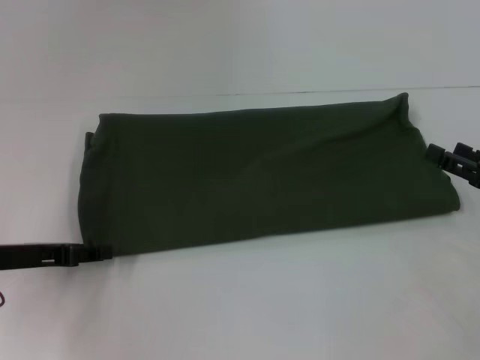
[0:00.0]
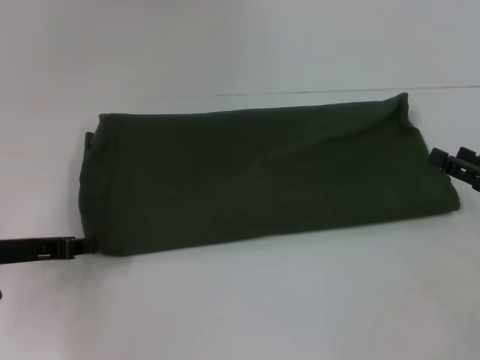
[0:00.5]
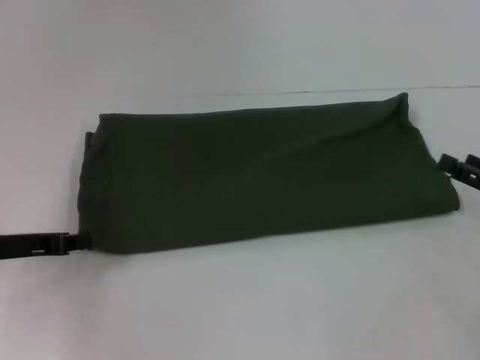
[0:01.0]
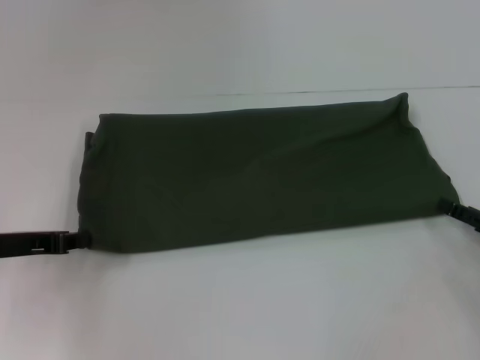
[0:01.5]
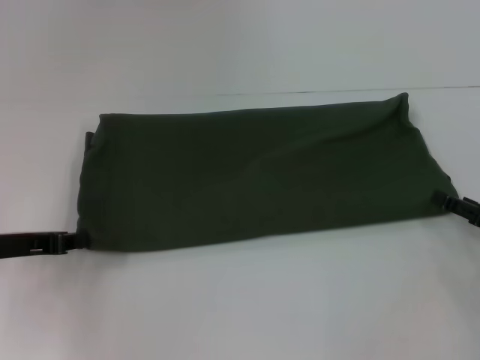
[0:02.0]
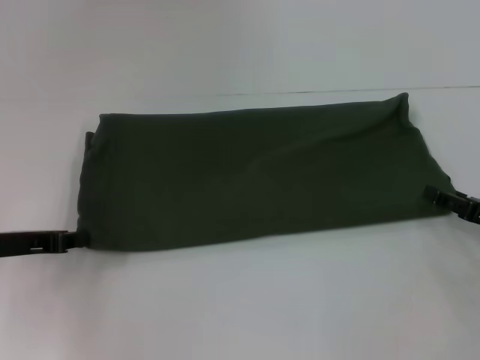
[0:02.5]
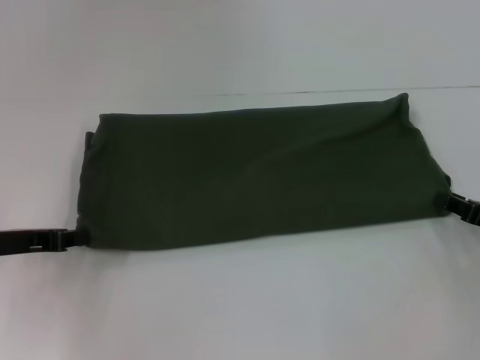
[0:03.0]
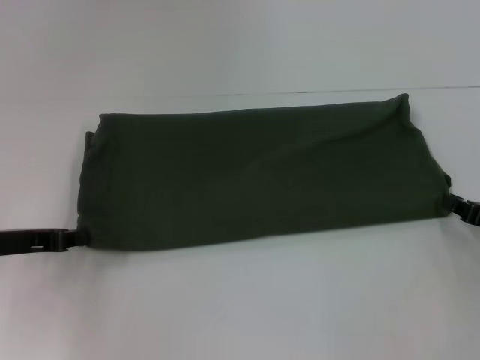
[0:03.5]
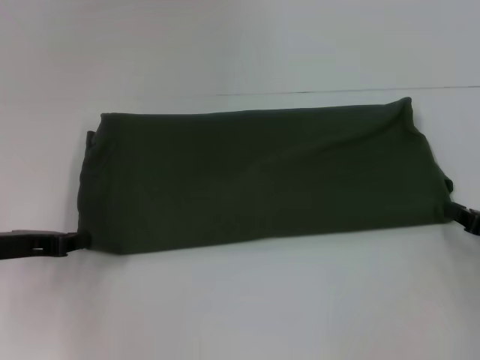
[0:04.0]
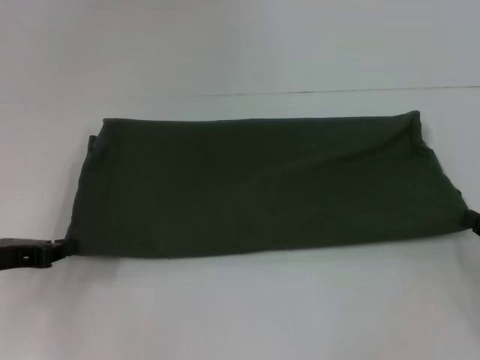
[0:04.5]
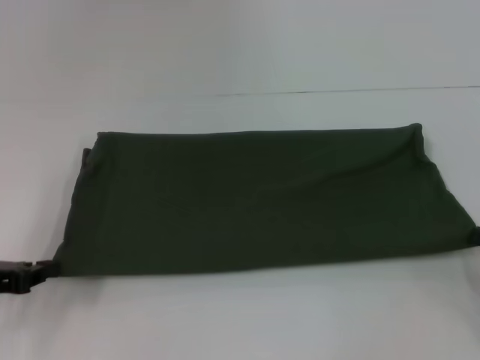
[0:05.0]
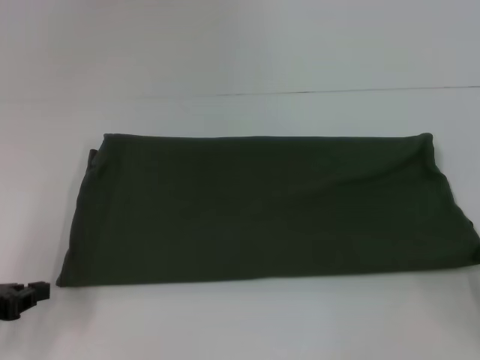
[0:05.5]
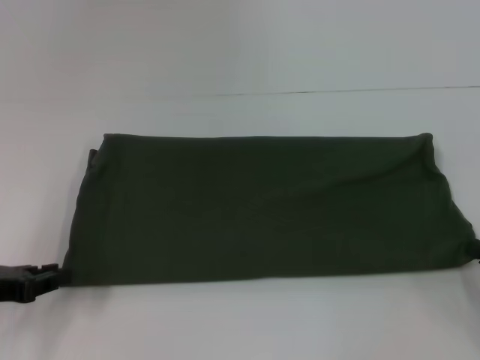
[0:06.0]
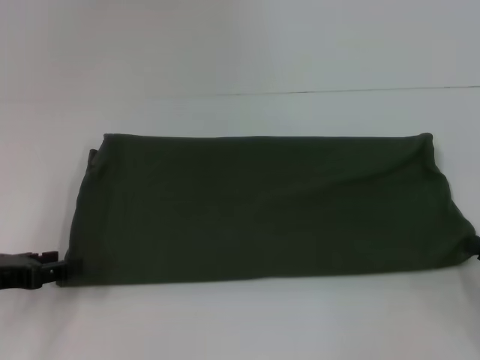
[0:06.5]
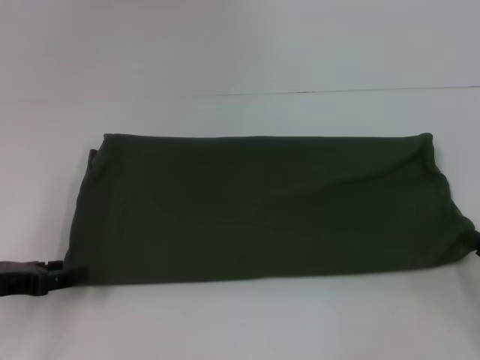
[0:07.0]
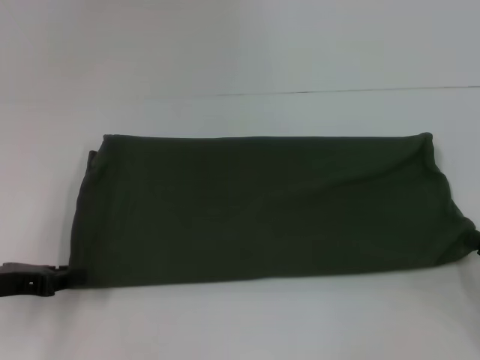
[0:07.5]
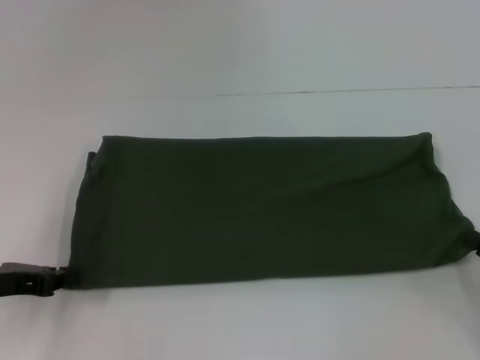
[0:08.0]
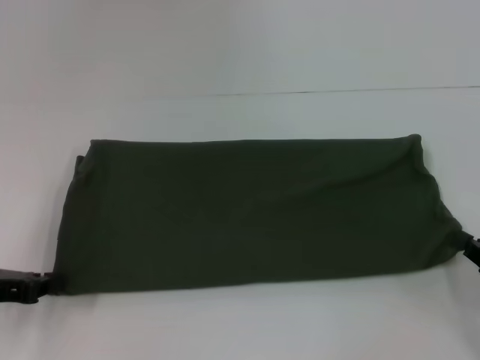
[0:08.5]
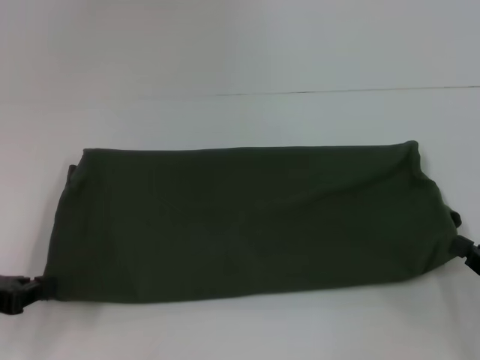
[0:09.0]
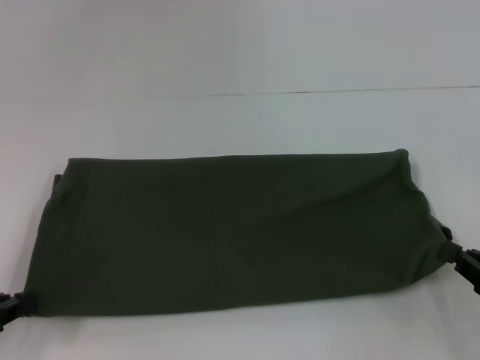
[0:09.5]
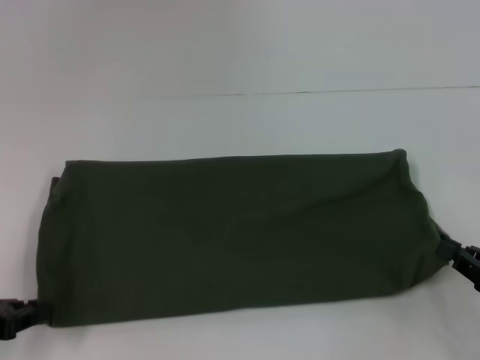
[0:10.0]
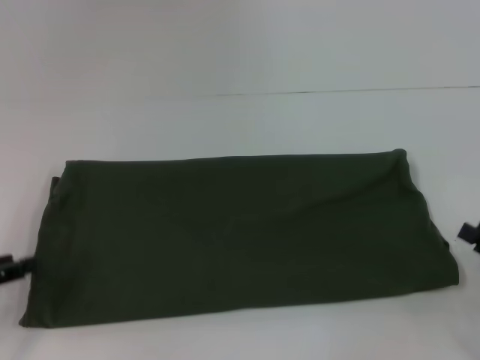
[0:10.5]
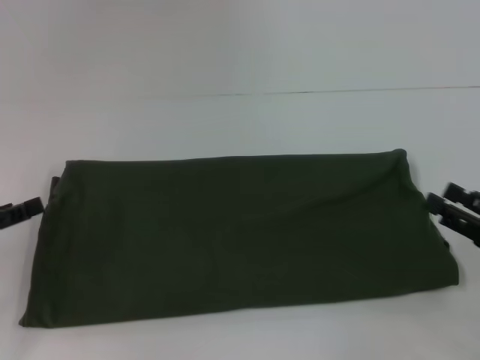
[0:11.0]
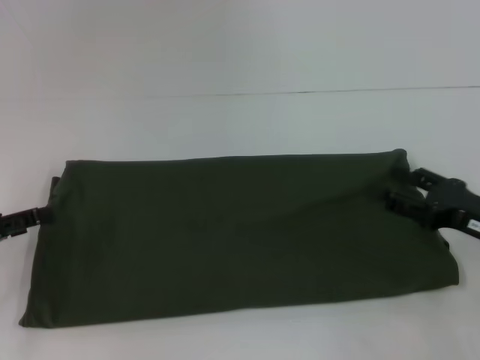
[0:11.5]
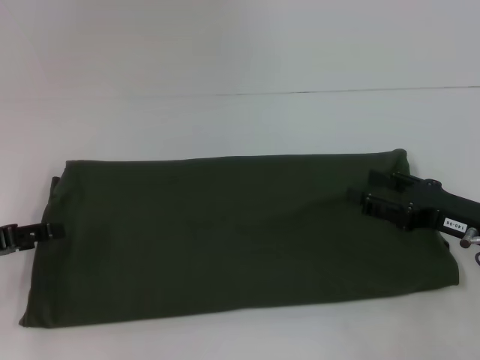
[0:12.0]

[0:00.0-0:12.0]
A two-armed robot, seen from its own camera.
0:00.0 to 0:02.0: The left gripper closes up.
0:02.0 to 0:04.0: The right gripper closes up.
0:04.0 to 0:06.0: Both grippers move backward, roughly 5 cm.
0:06.0 to 0:08.0: The left gripper opens and closes again.
0:08.0 to 0:10.0: The left gripper moves some 5 cm.
0:10.0 to 0:12.0: The left gripper is displaced forward by about 5 cm, and opens up. The right gripper travels forward and to the left by about 10 cm, and opens its fingers.

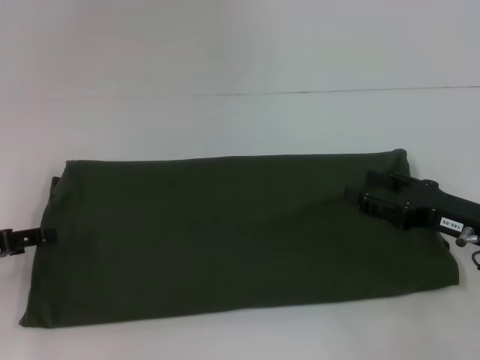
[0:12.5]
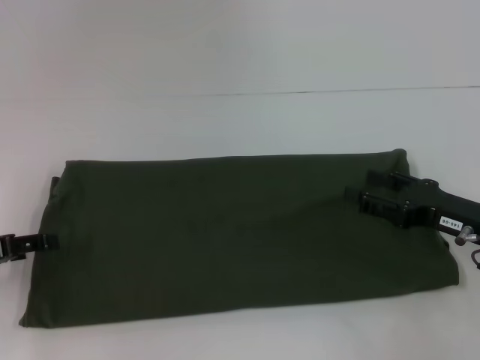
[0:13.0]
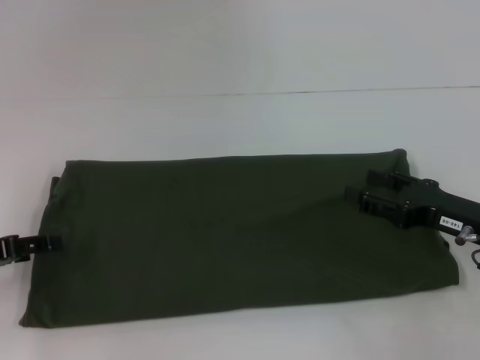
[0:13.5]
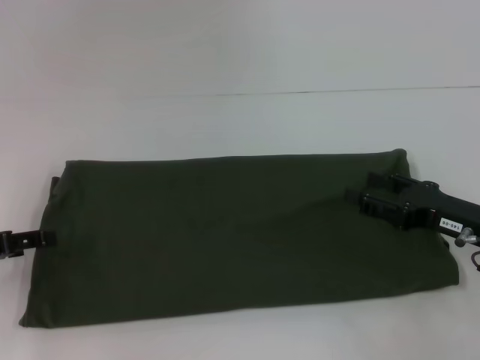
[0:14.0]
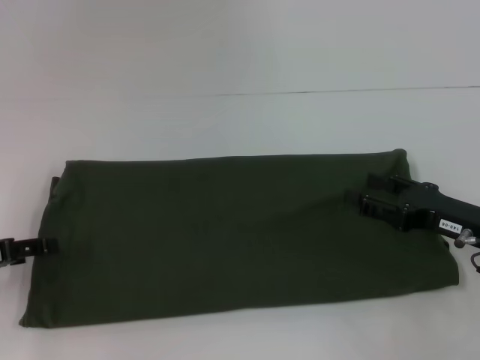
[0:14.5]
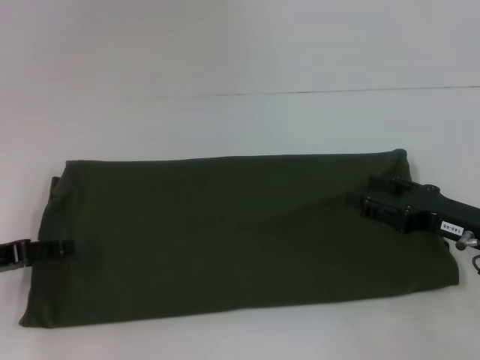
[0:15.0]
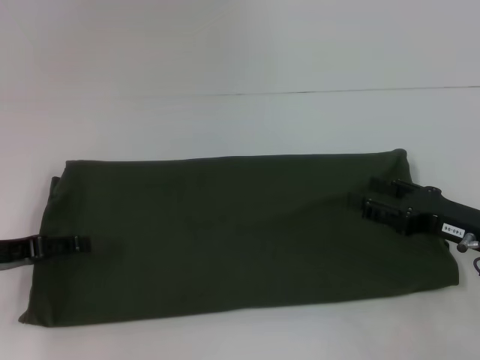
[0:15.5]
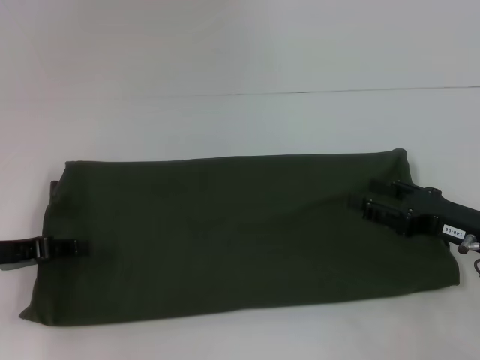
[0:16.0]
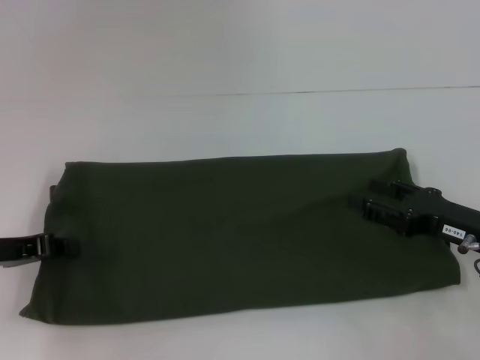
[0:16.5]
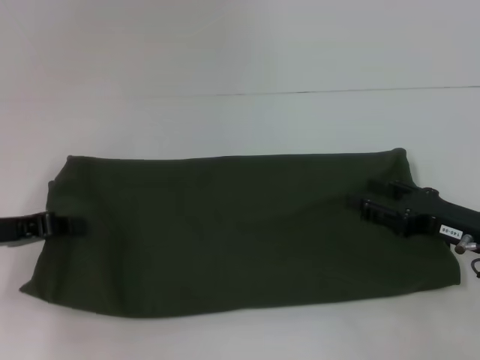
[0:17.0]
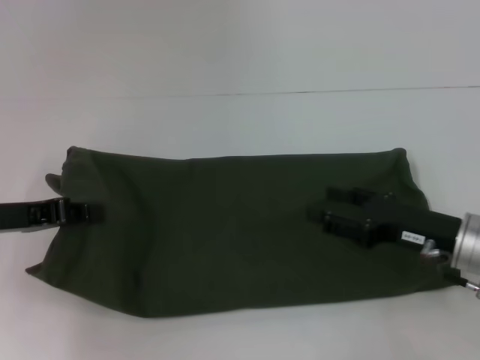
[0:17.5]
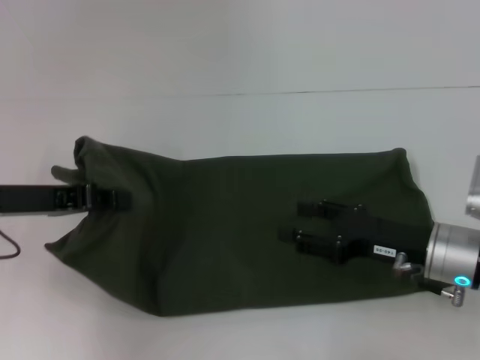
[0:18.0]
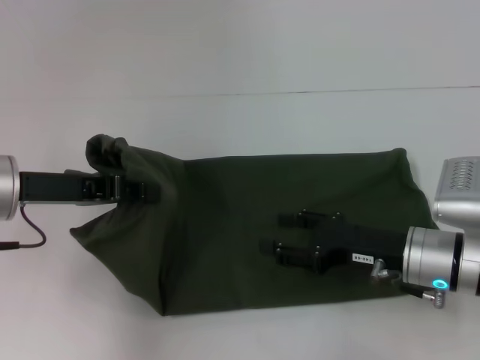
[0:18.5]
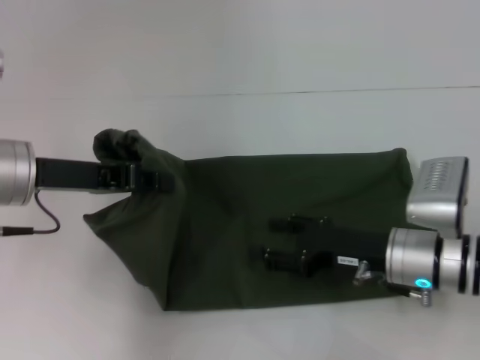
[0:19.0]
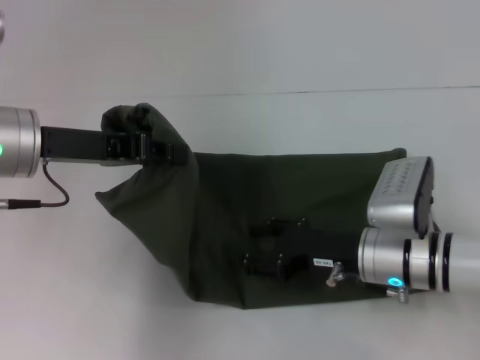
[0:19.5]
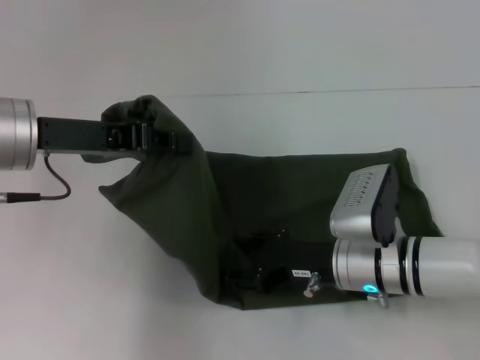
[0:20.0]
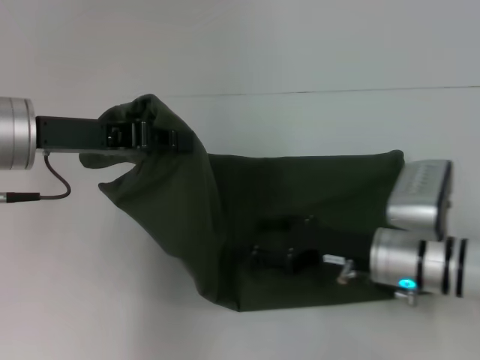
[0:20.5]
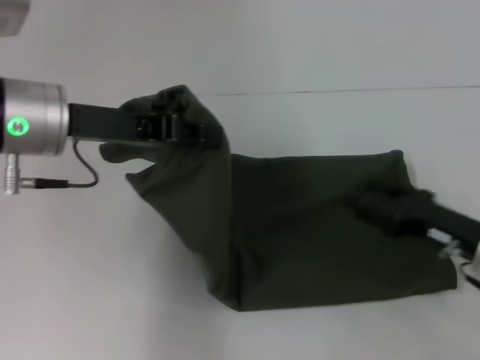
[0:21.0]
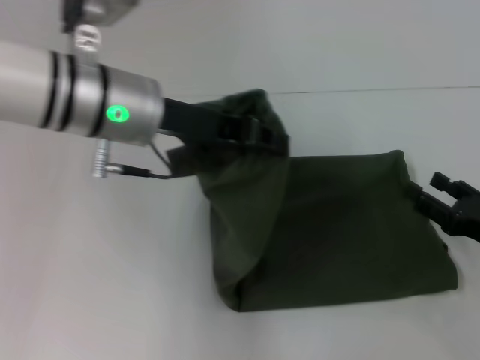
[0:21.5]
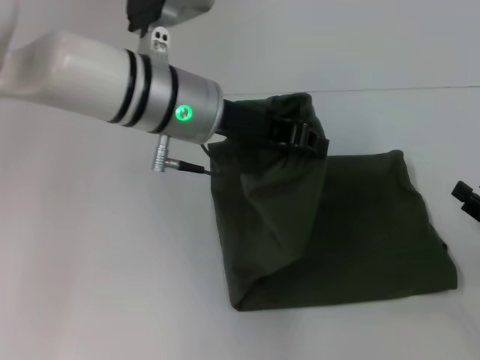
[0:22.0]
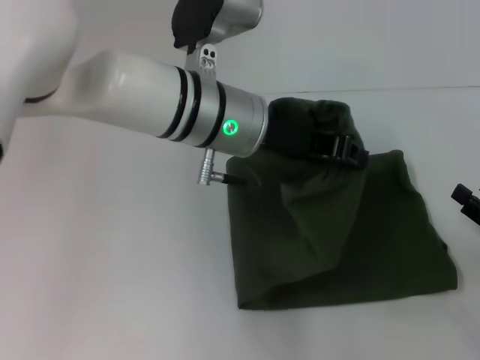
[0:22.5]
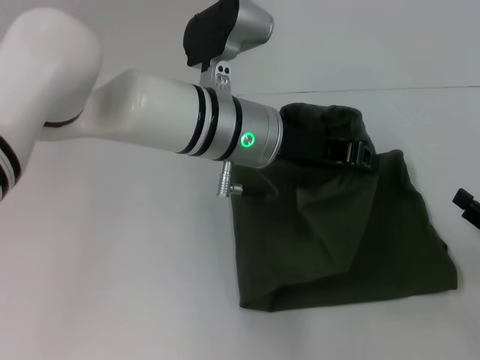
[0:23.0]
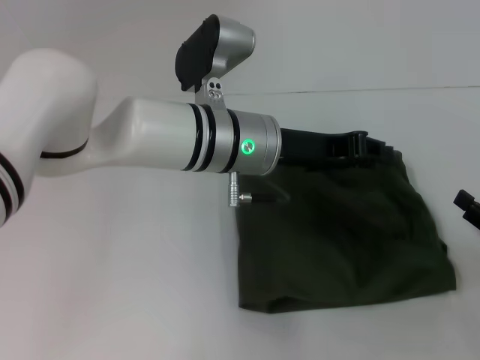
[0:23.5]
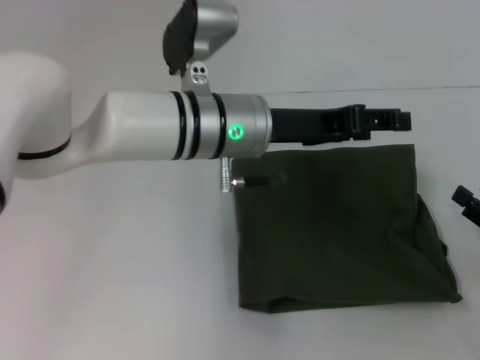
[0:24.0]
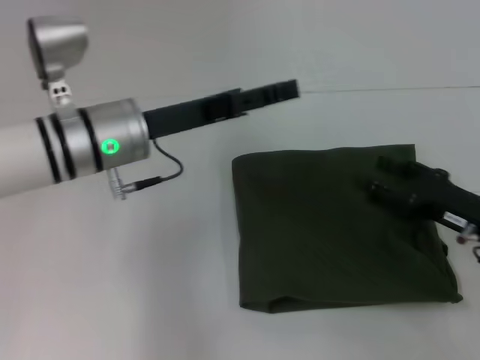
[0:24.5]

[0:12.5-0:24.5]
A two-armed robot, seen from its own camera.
Step, 0:12.5 to 0:24.0: Fold the clothes with your left hand.
0:12.5 to 0:14.5: Both grippers stay put.
0:14.5 to 0:16.5: The left gripper closes.
0:16.5 to 0:18.5: The left gripper heads upward and to the right, covering some 10 cm. The right gripper is displaced to the left by approximately 10 cm.
0:18.5 to 0:20.5: The left gripper shifts by some 5 cm.
0:20.5 to 0:22.5: The grippers both shift to the right by roughly 20 cm.
0:22.5 to 0:24.5: The left gripper travels to the left by approximately 10 cm, and opens up; the right gripper goes roughly 10 cm to the left and forward.

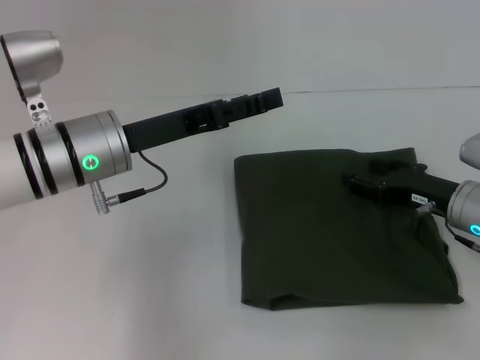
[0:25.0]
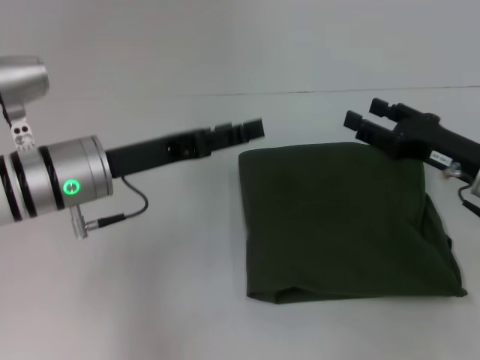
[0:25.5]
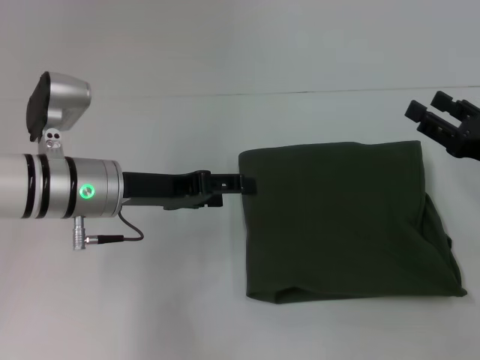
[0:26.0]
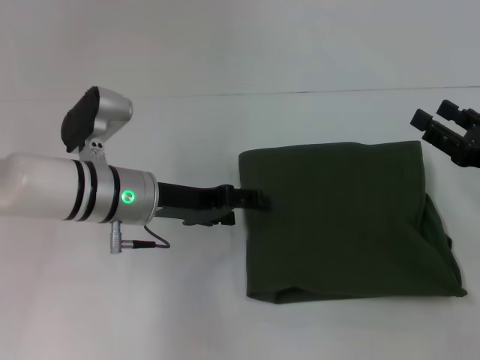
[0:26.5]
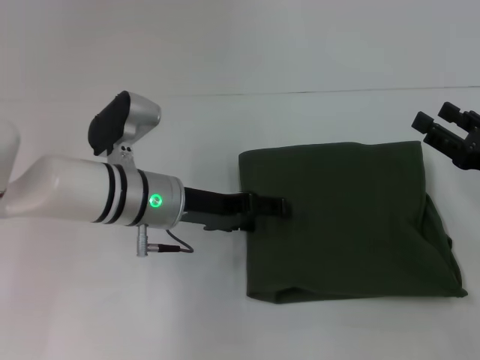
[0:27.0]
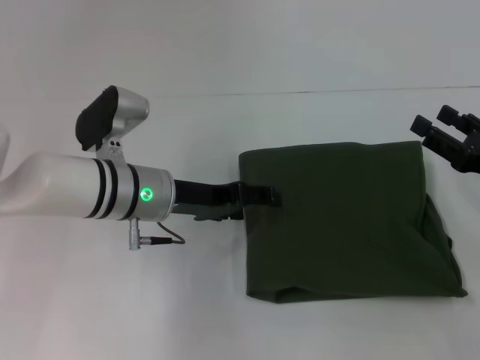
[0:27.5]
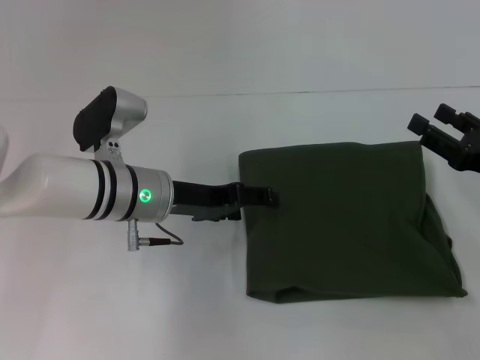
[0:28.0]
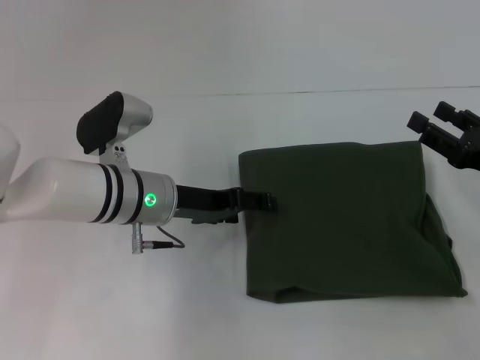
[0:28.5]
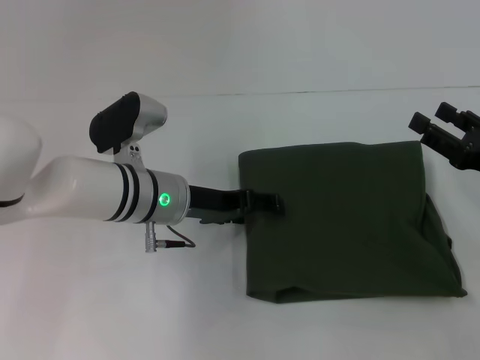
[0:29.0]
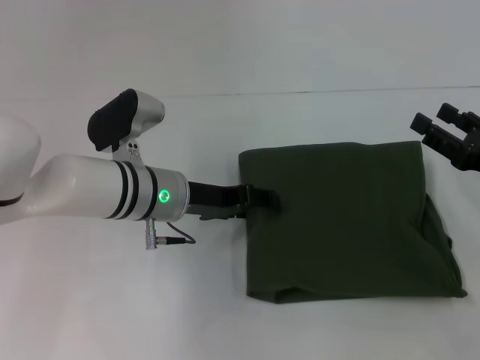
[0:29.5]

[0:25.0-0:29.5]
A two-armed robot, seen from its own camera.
0:25.0 to 0:27.0: The left gripper is displaced downward by about 5 cm. The right gripper goes about 5 cm to the right.
0:27.0 to 0:29.5: The grippers stay close to where they were, moving slightly.
